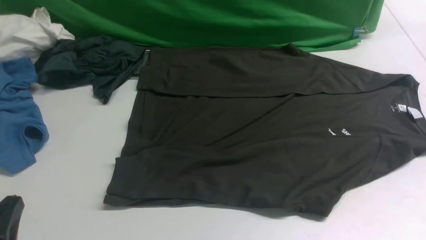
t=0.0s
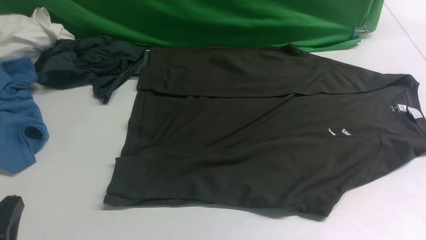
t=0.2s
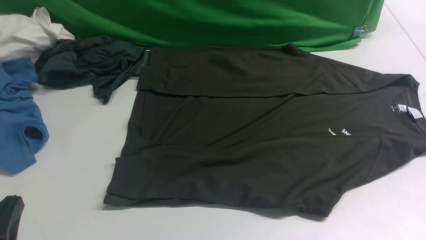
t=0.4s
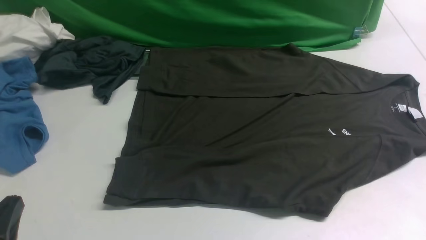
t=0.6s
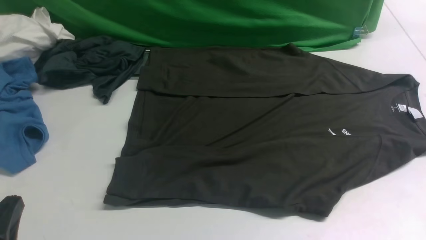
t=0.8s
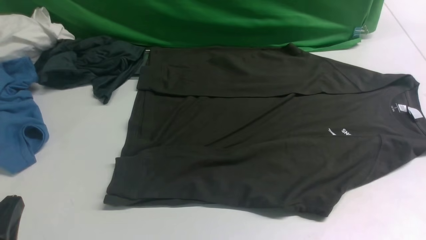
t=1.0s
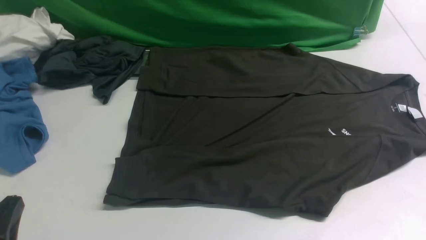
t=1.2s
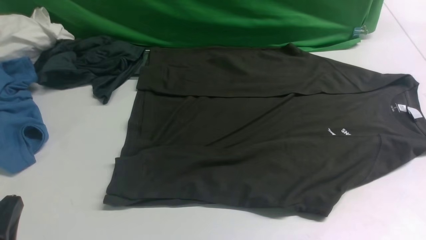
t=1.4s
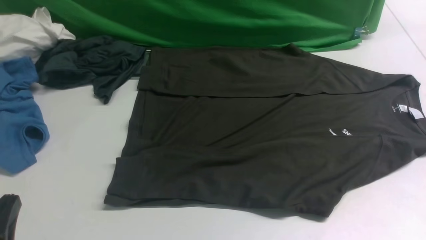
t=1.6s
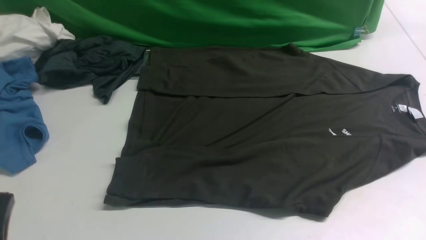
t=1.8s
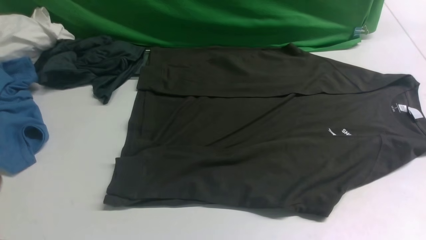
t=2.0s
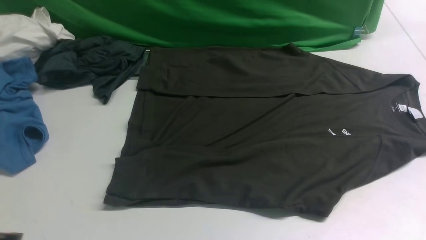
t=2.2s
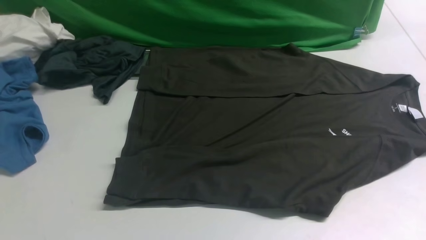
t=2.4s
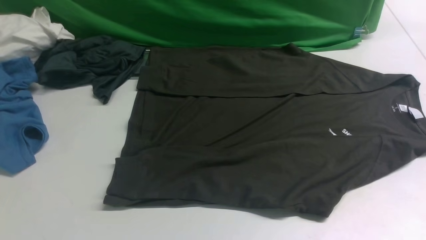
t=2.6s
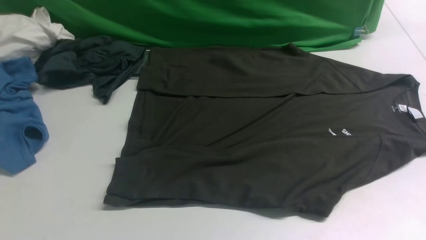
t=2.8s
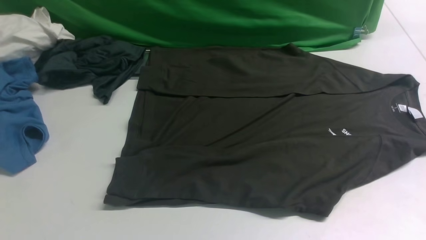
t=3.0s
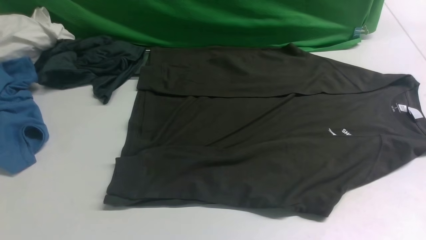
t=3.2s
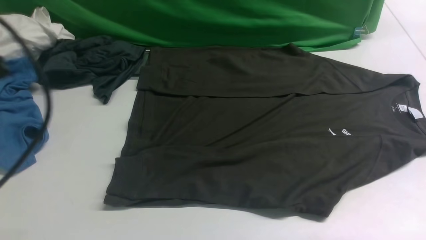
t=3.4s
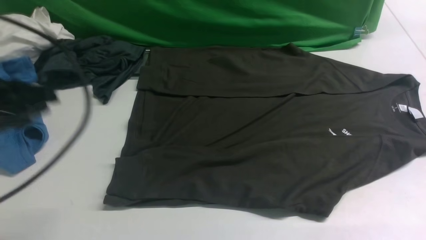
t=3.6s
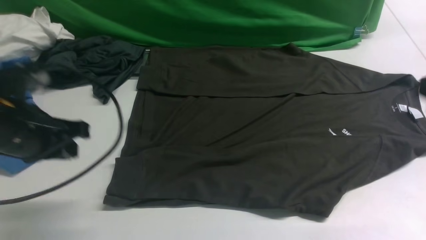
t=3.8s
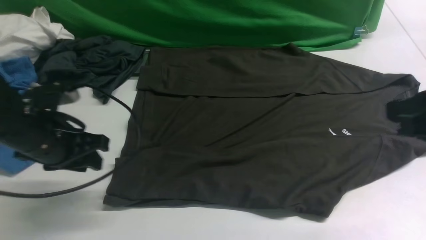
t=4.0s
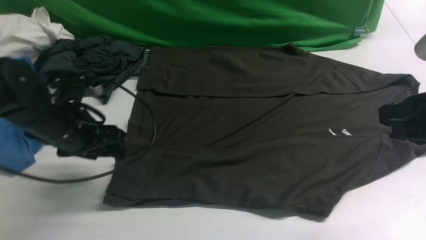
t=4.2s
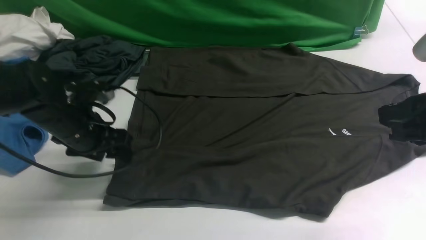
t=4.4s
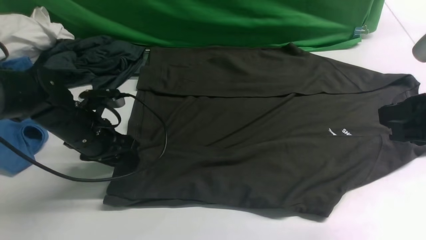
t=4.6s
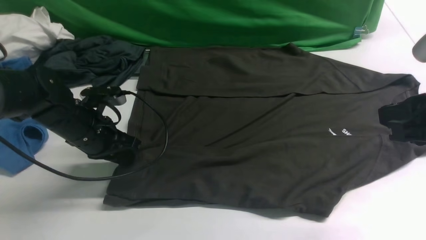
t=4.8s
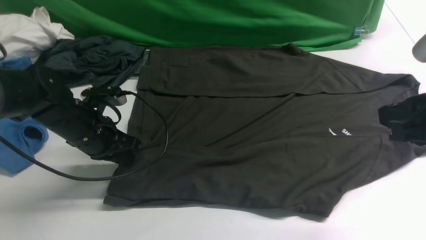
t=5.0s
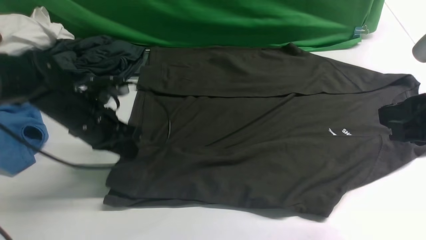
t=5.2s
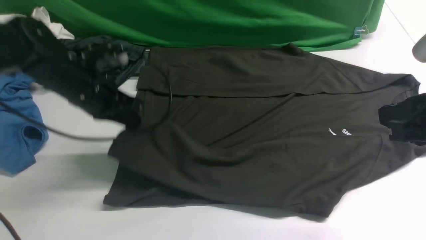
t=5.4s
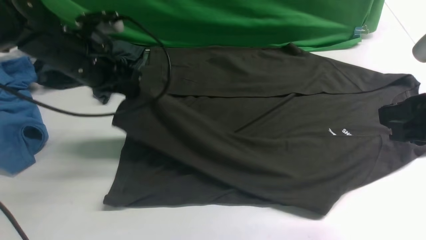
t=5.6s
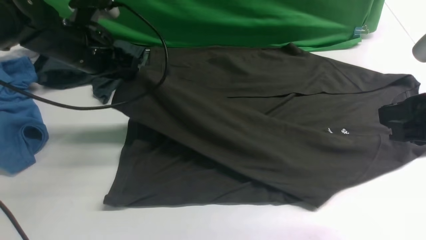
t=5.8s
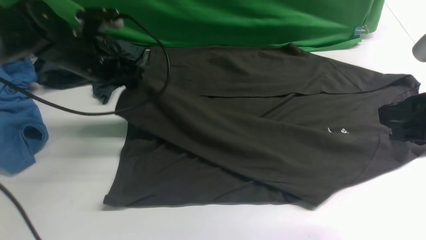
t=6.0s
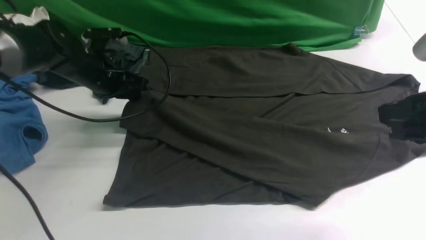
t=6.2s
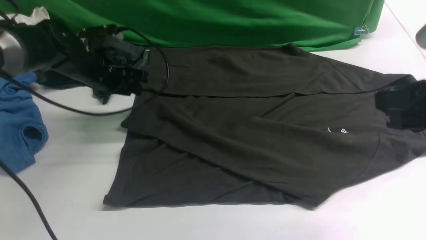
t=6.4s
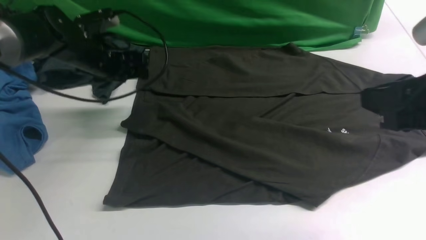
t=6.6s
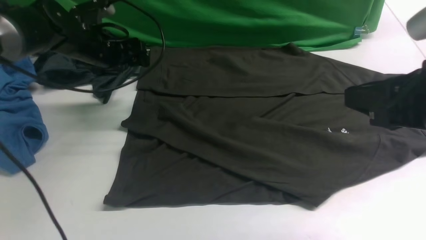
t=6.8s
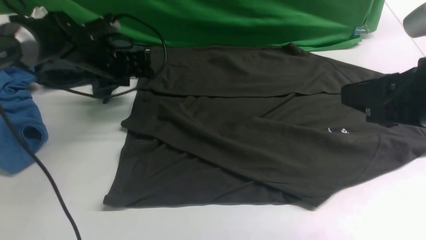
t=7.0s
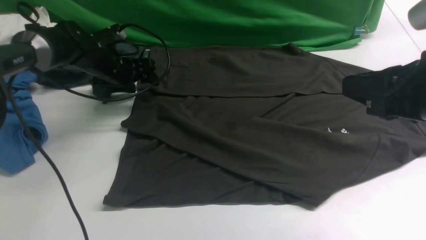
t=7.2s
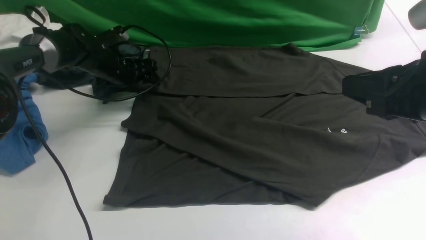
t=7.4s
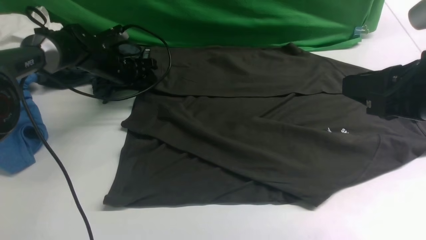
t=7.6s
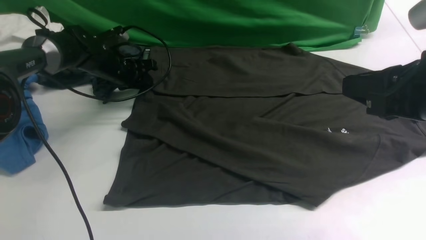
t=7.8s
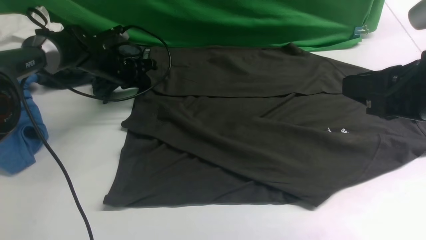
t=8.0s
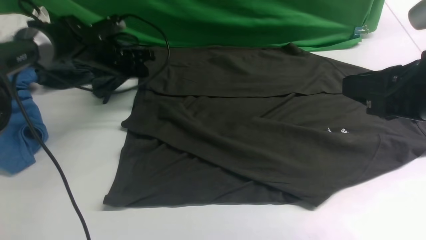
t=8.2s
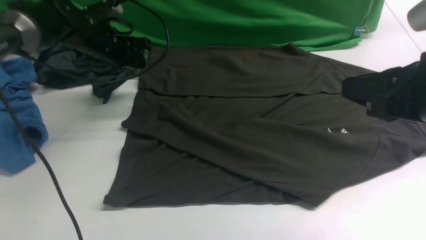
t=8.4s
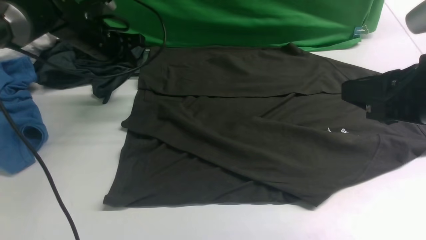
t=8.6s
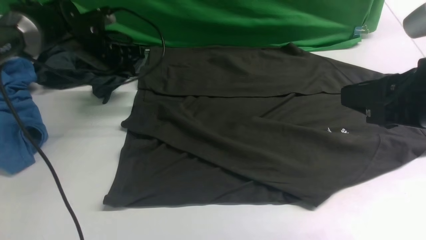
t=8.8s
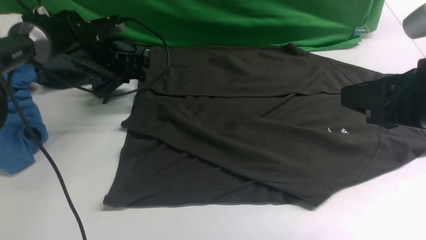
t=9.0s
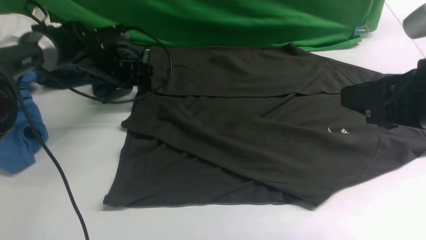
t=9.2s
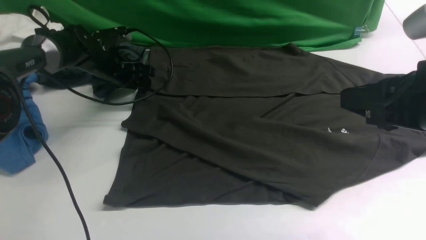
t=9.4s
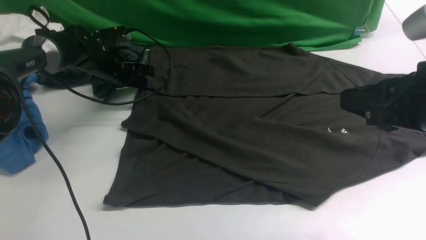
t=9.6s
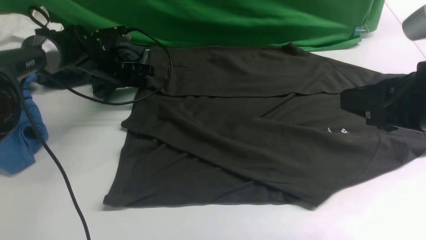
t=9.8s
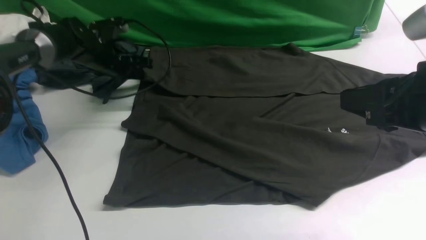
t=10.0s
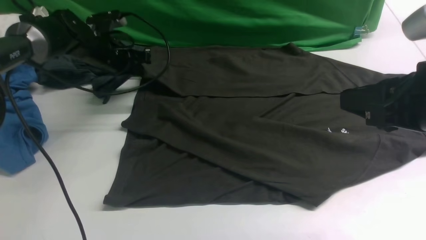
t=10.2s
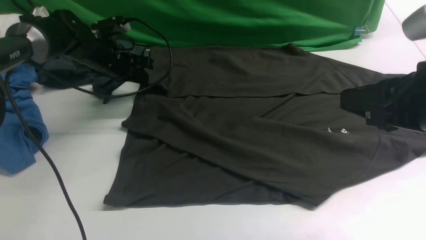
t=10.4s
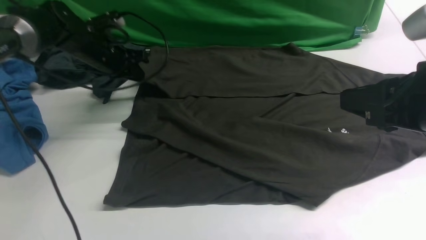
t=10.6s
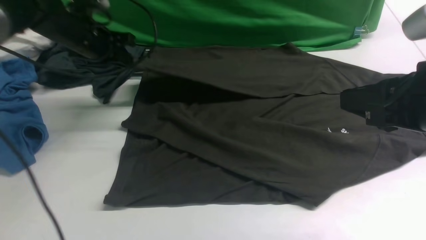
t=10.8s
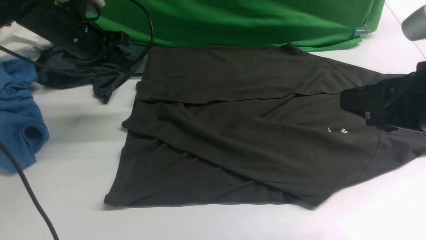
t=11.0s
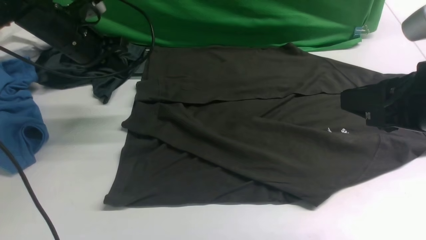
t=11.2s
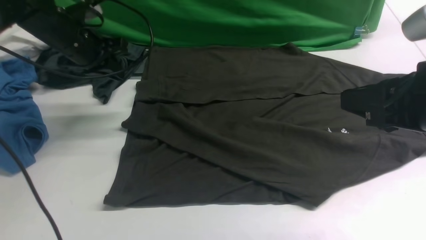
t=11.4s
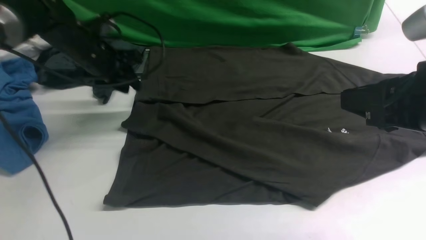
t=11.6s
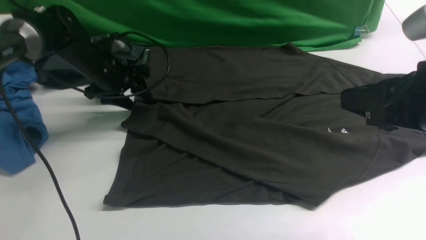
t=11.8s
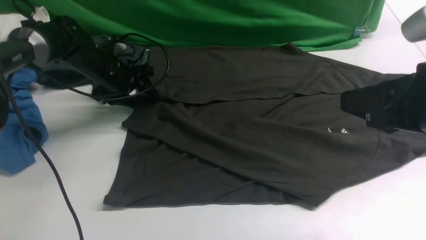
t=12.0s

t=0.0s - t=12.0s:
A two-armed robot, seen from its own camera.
Step, t=0.0s - t=5.0s: use the left arm to clamp the cuff closest to it.
Step, t=5.2s - t=6.6s: use the left arm to drag and place the cuff at the centered position on the left edge of the fabric.
Step, t=6.8s - t=10.0s: use the left arm to clamp the cuff farthest from it.
t=0.0s - t=1.6s: There are only small adjustments of the grippers.
t=1.6s - t=3.0s: The left gripper heads upward, covering roughly 20 cm.
t=3.0s - t=4.4s: The right gripper heads forward and to the left, covering about 10 cm; the left gripper travels forward and downward by approximately 30 cm, and opens up.
t=4.4s - t=6.0s: The left gripper travels forward by roughly 10 cm, and closes its fingers.
t=6.0s - t=7.6s: The left gripper goes some 10 cm forward and downward, and opens its fingers.
t=7.6s - t=9.0s: The left gripper closes, then opens again.
t=9.0s - t=10.4s: The left gripper closes.
t=10.4s - t=12.0s: The left gripper goes upward and returns, roughly 5 cm each way, and opens its fingers.

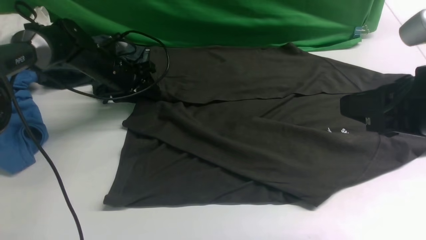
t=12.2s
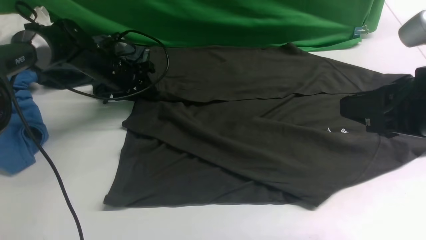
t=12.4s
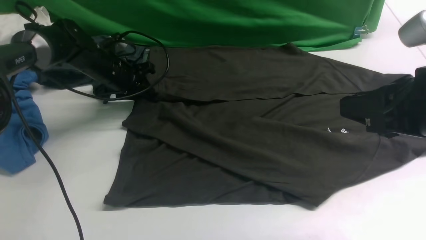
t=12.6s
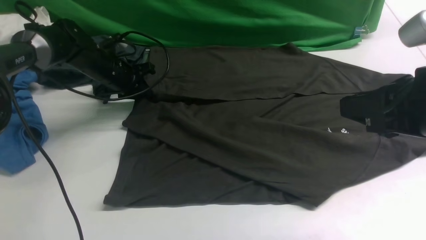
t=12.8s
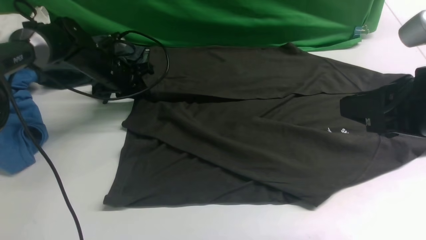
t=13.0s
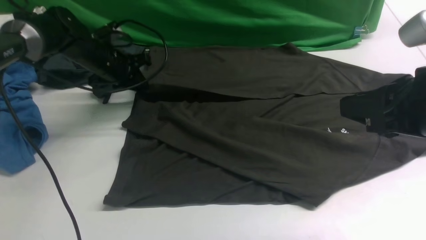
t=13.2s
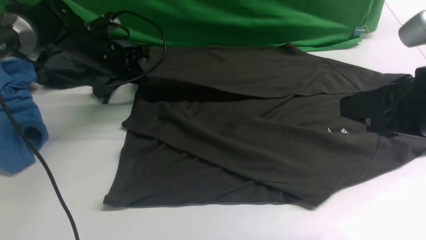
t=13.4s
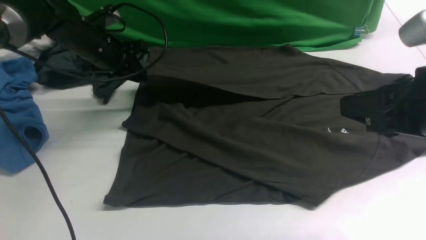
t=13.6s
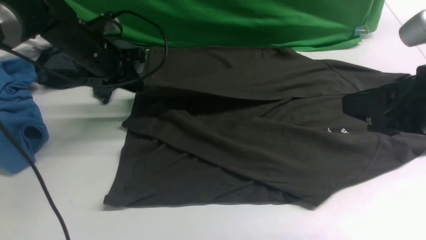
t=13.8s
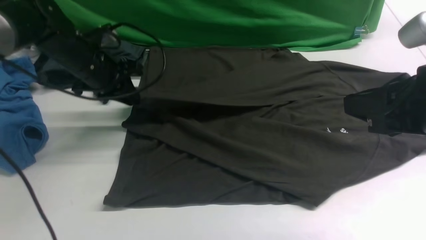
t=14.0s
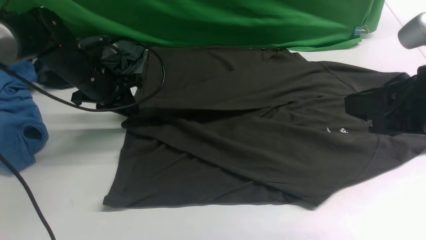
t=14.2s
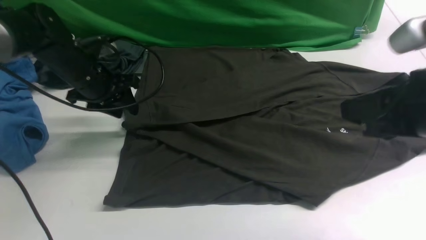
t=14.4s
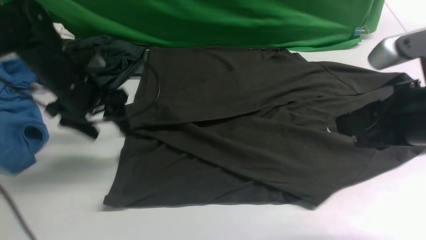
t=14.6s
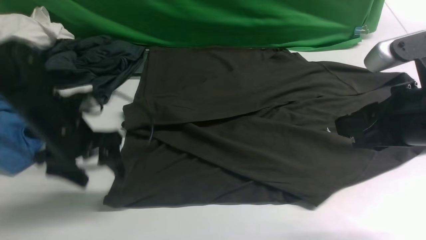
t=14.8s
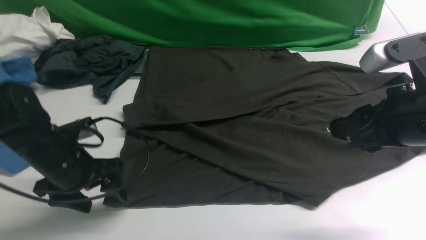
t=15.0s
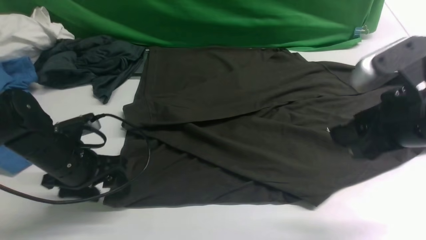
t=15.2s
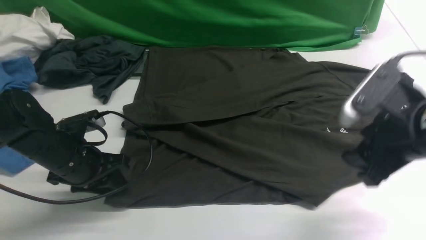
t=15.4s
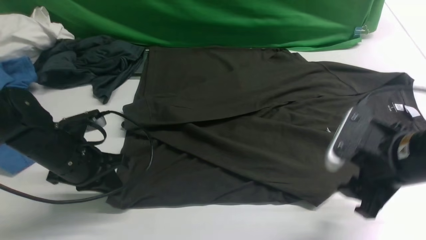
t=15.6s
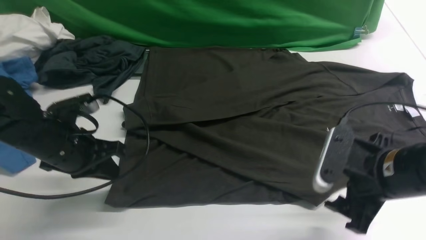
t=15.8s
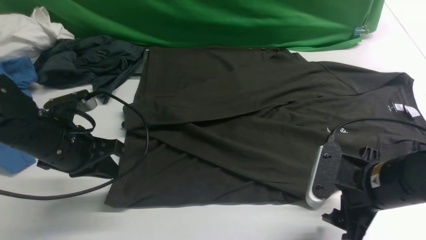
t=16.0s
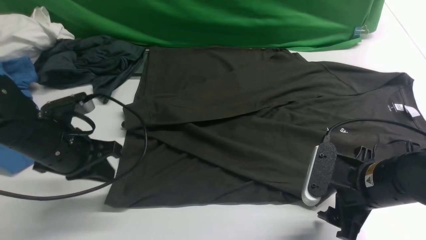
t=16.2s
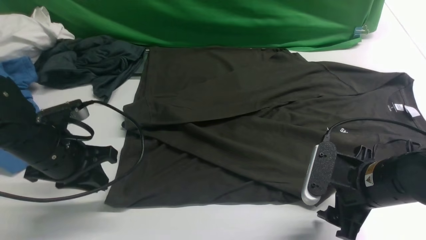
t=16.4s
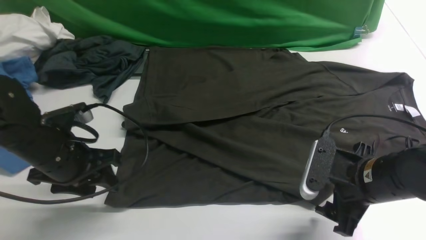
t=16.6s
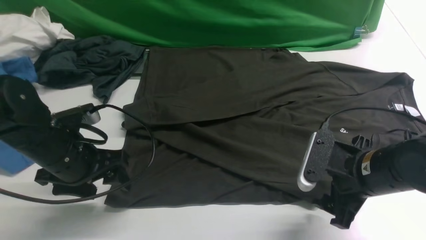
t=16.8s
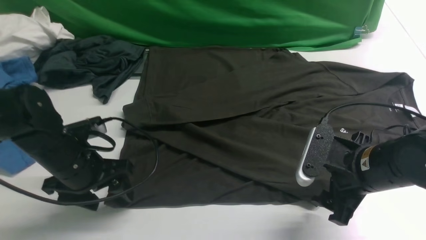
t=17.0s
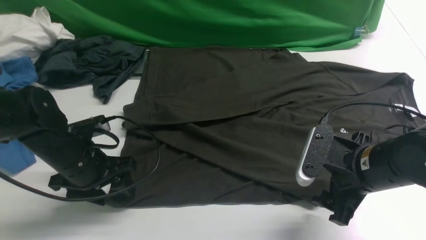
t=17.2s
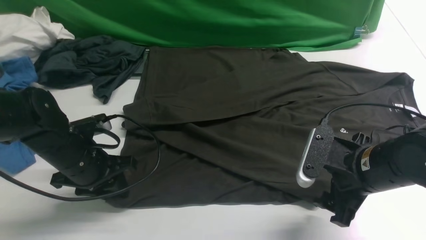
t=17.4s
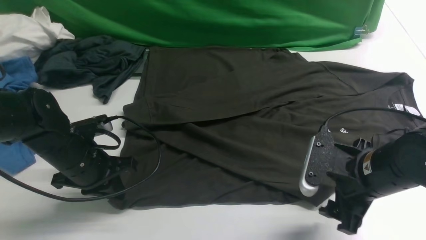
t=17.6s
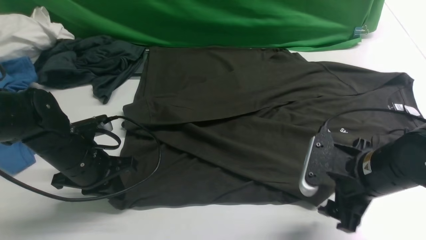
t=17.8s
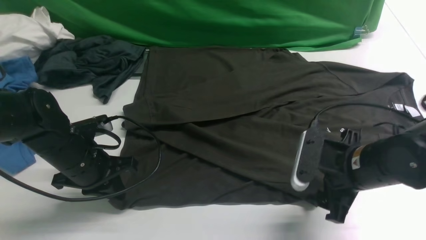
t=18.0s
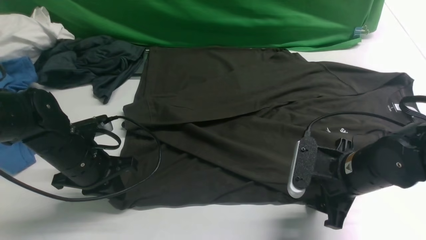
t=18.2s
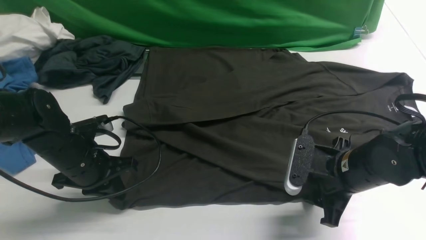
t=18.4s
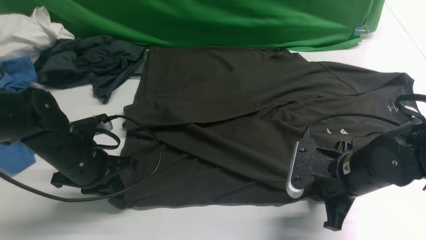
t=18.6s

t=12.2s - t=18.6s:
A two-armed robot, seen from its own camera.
Step, t=12.2s - t=14.2s: use the left arm to drag and drop the cuff onto the cuff closest to the left arm.
t=12.2s - t=13.8s: The left gripper heads upward, covering roughly 5 cm, and closes up.
t=13.8s - t=15.4s: The left gripper heads backward, covering approximately 15 cm, and opens, then closes once more; the right gripper travels downward by approximately 10 cm, and opens.
t=15.4s - t=17.0s: The left gripper opens its fingers; the right gripper travels downward by approximately 5 cm.
t=17.0s - t=18.6s: The left gripper closes. The right gripper closes its fingers.
